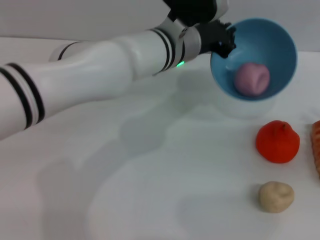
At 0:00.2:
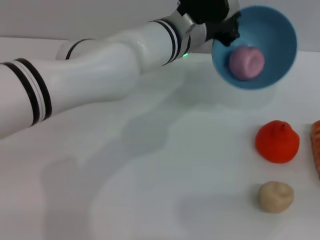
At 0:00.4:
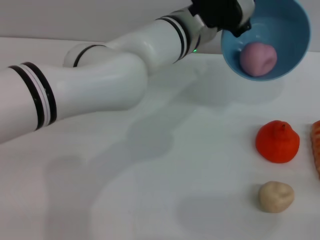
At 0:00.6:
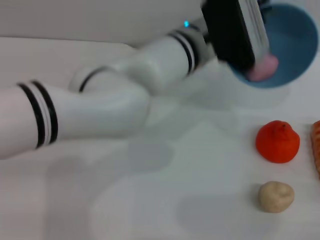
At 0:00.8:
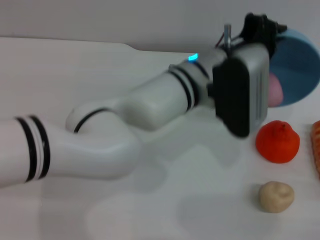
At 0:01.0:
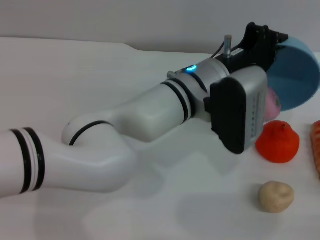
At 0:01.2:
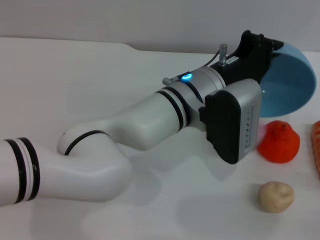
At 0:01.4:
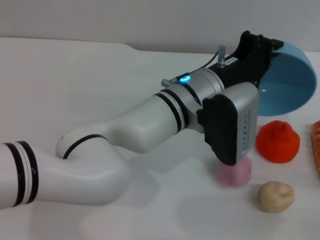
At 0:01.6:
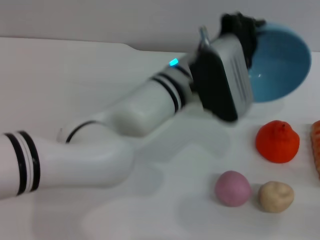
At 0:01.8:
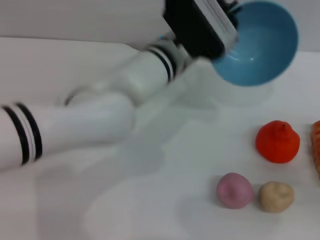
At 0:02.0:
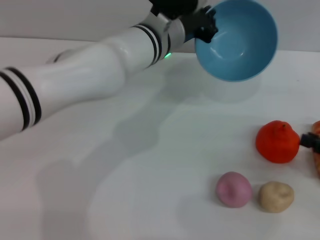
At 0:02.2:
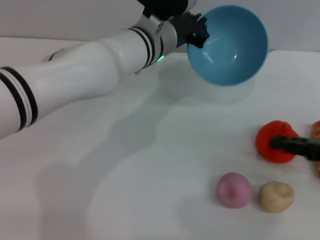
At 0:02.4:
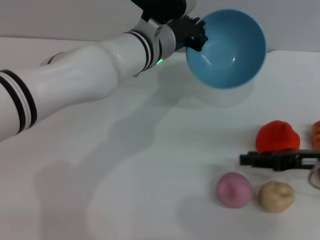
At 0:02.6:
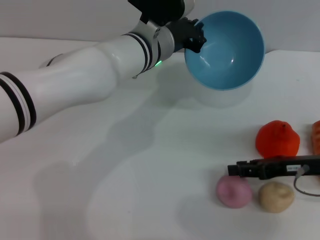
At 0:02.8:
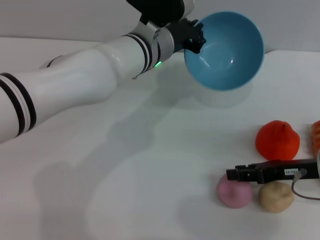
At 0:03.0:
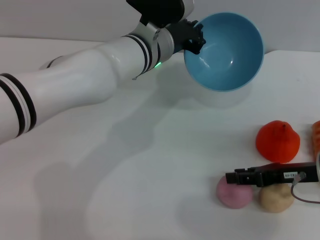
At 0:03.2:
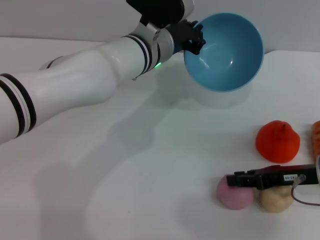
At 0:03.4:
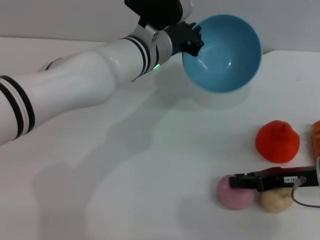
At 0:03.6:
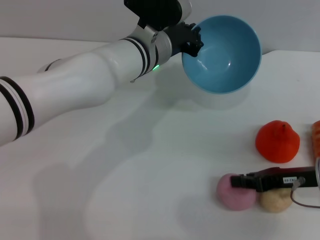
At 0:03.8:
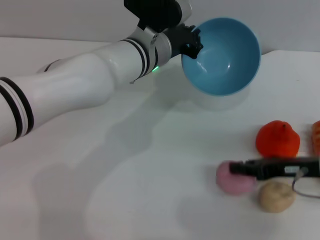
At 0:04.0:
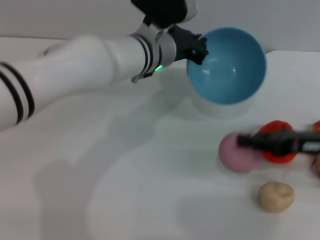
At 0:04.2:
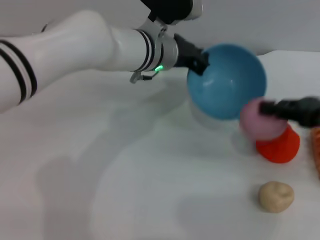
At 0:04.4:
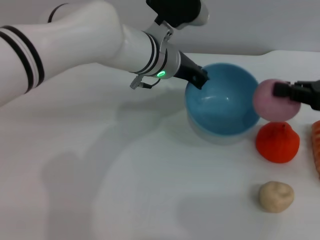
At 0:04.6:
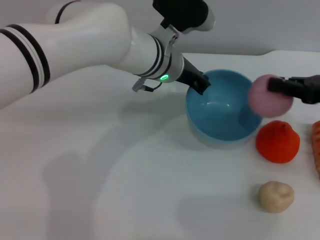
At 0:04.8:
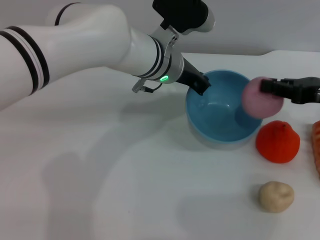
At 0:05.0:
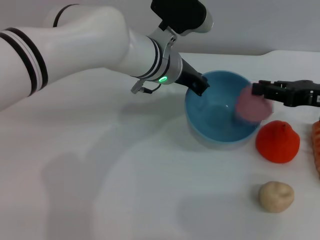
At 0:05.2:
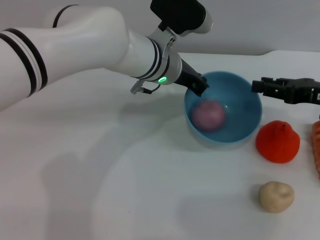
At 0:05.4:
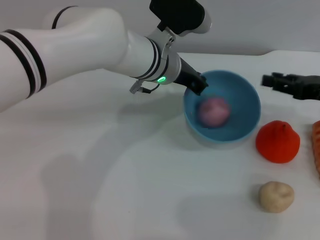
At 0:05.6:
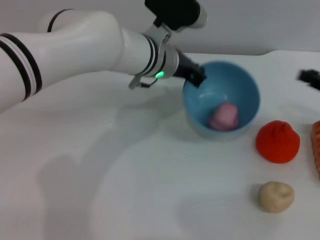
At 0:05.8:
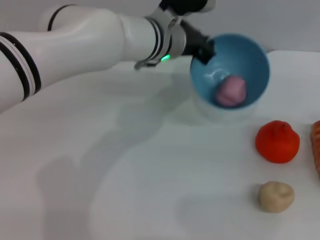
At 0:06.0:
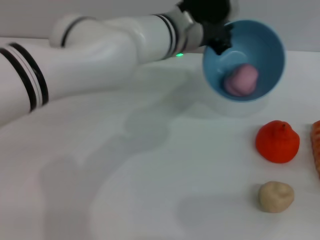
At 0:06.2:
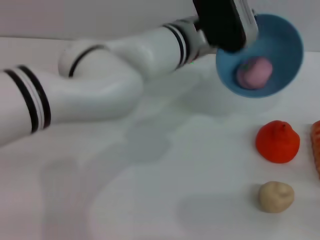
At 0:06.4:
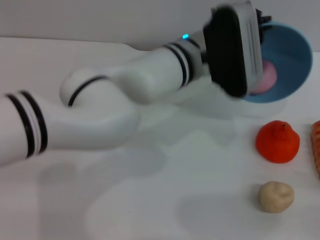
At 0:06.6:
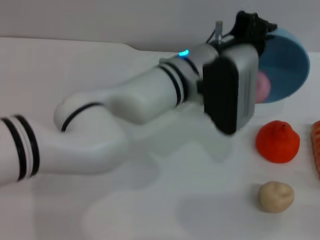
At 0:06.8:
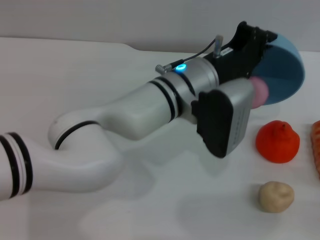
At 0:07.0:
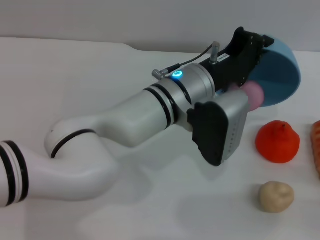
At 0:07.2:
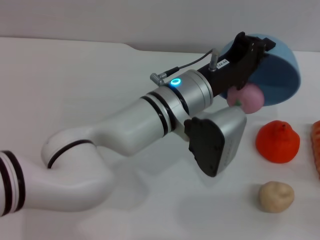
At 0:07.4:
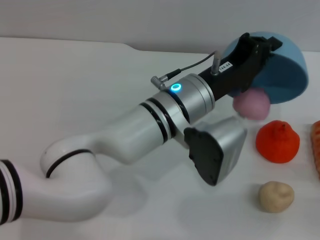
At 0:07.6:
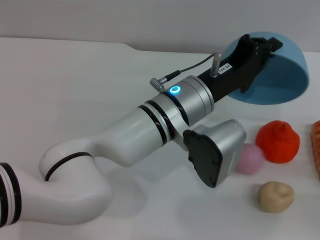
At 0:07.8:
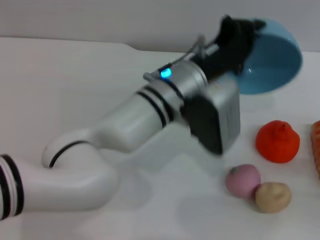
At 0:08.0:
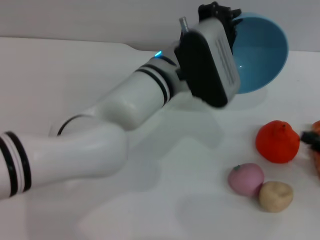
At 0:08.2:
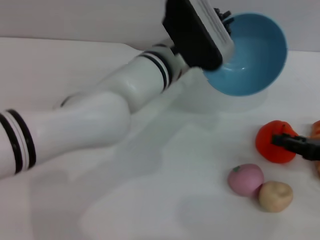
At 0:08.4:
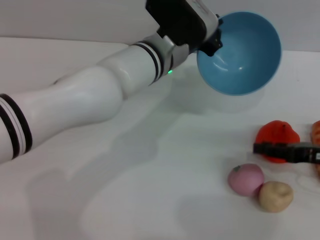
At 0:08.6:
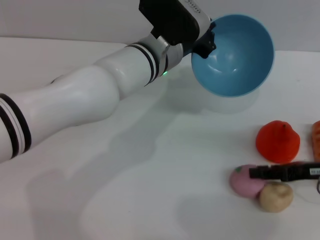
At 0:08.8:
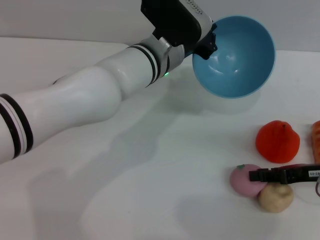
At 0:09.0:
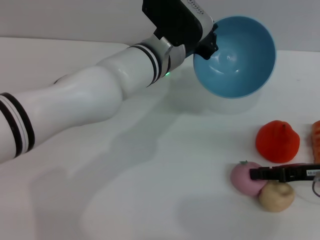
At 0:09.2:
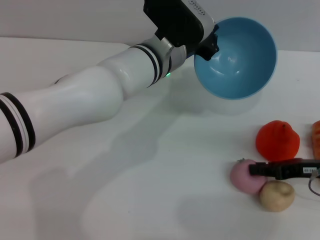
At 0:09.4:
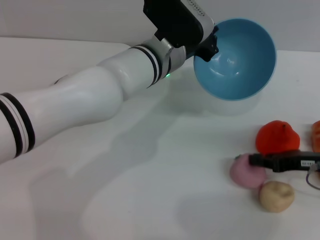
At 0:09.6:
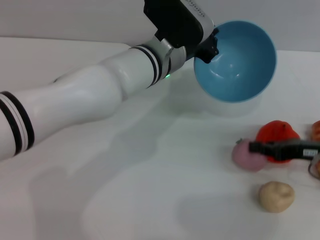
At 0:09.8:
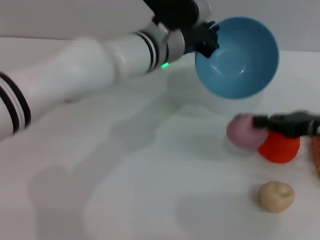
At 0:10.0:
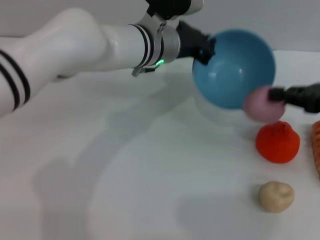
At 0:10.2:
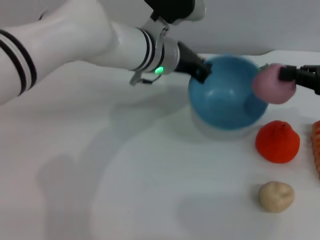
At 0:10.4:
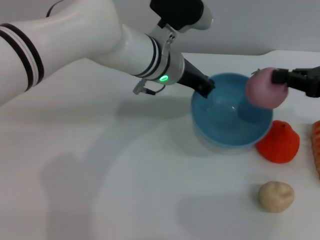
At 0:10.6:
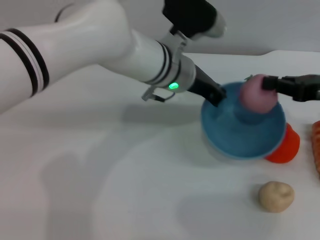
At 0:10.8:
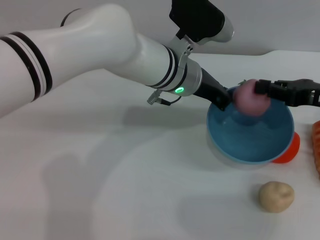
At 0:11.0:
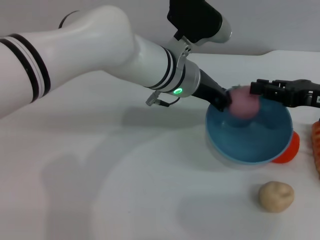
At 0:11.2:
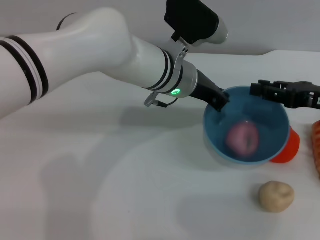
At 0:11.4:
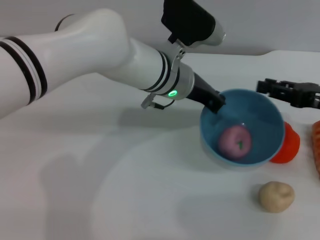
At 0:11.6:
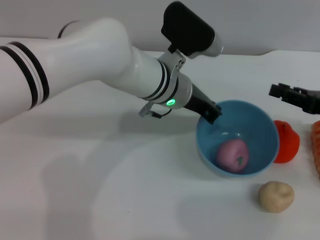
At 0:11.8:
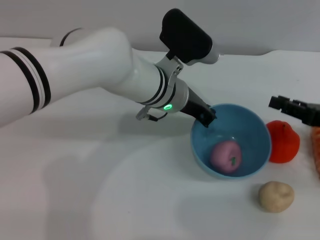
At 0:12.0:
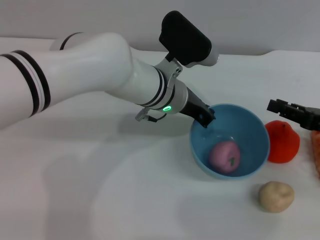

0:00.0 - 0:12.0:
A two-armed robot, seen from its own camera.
Task of the whole recording: put the peach into the blue bowl and pour it out repeatedly.
Step, 0:00.0 - 0:01.6: Pour the peach out of bowl.
Step, 0:01.8 - 0:03.8: Pick up the peach with the right gripper.
Step, 0:04.2 - 0:05.4: Place the peach into the bowl.
Step, 0:05.6 - 0:08.0: Pour the peach out of bowl.
Step, 0:08.4 - 0:09.4: Pick up the peach with the right gripper.
Step, 0:09.6 - 0:11.4: Place the peach into the bowl.
0:00.0 - 0:01.6: The left gripper is displaced backward by roughly 5 cm. Meanwhile the right gripper travels backward and downward by about 15 cm.
0:01.6 - 0:03.0: The left gripper goes roughly 5 cm forward. The right gripper shifts some 20 cm to the left and forward.
0:03.0 - 0:04.4: The right gripper shifts some 10 cm upward, and closes its fingers.
0:04.4 - 0:06.0: The right gripper heads downward, backward and to the right, covering about 15 cm, and opens its fingers.
0:06.0 - 0:07.6: The left gripper travels backward by approximately 10 cm.
0:07.6 - 0:09.0: The right gripper moves to the left and forward, roughly 15 cm, while the left gripper travels forward by roughly 10 cm.
0:09.0 - 0:10.4: The right gripper heads upward, covering approximately 10 cm, and closes up.
0:10.4 - 0:12.0: The right gripper travels downward by approximately 10 cm, and opens up.

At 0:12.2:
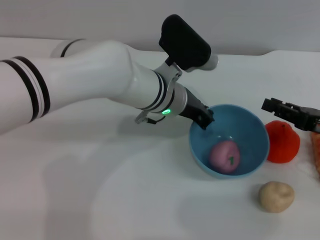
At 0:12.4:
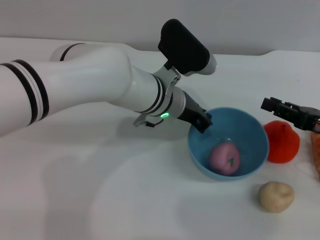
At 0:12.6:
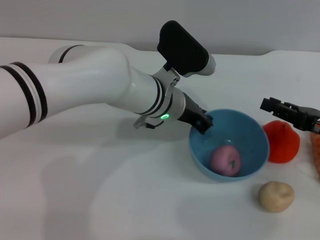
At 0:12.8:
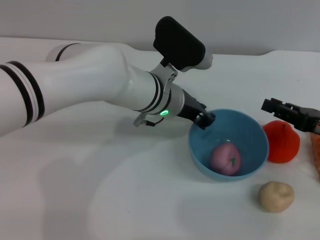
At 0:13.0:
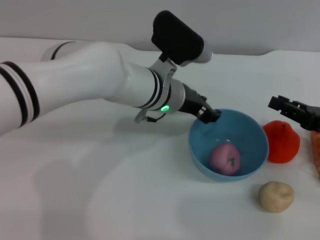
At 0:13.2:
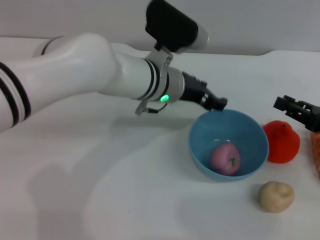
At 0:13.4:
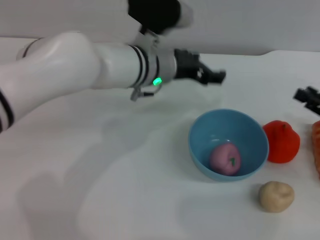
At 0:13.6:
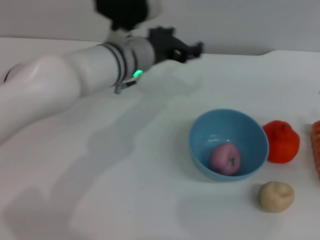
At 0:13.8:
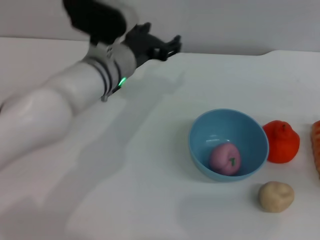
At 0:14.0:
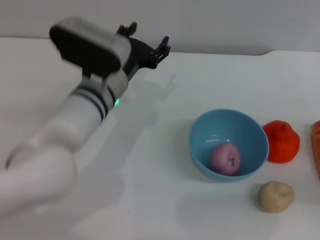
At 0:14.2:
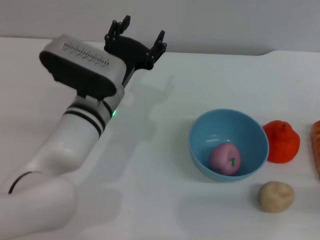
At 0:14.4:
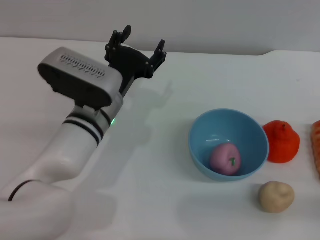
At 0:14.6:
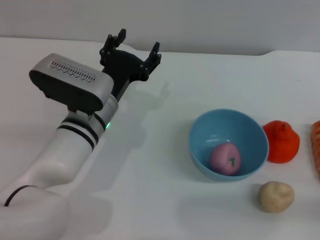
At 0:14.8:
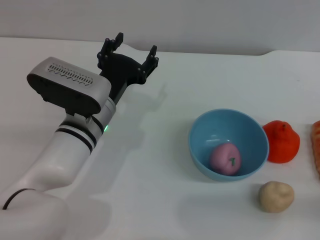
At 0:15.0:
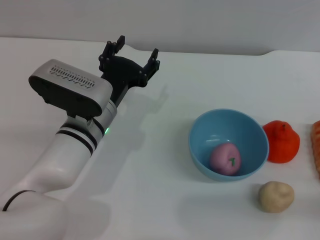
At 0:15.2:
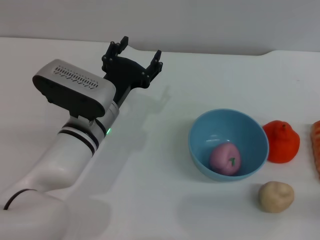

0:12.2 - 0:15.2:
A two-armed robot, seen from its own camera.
Task of the whole recording: put the peach into the blue bowl and pour it out repeatedly.
Step, 0:12.2 - 0:13.0: Place the bowl on the table.
0:12.2 - 0:13.8: The left gripper is displaced to the left by some 10 cm, and opens. Meanwhile the right gripper travels to the right by about 10 cm.
0:13.8 - 0:15.2: The right gripper ends up some 5 cm from where it was. The left gripper heads backward and downward, covering some 10 cm.
